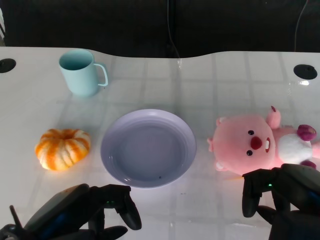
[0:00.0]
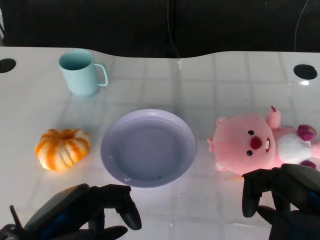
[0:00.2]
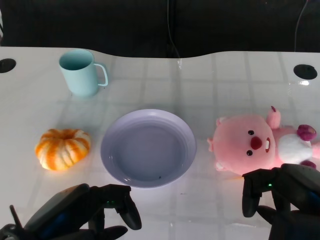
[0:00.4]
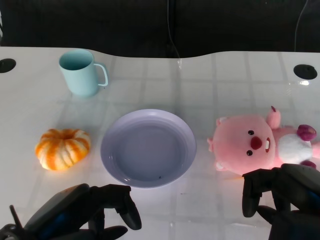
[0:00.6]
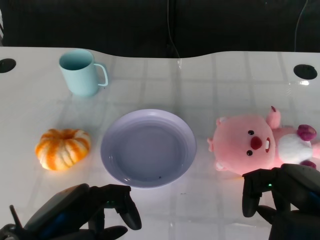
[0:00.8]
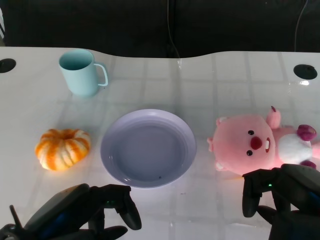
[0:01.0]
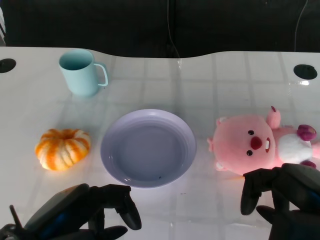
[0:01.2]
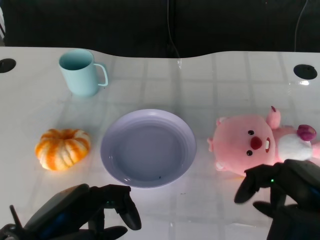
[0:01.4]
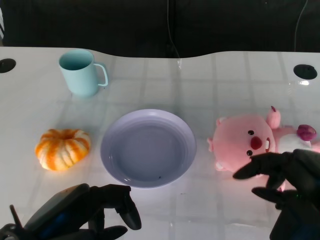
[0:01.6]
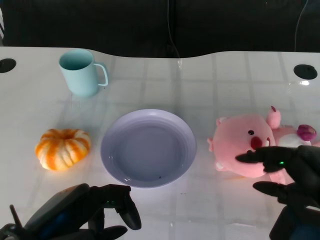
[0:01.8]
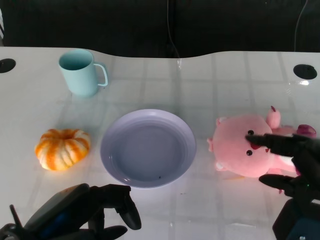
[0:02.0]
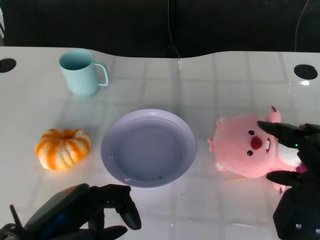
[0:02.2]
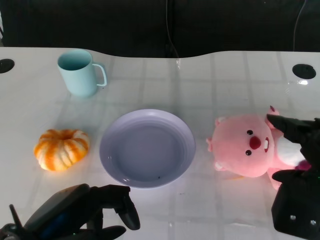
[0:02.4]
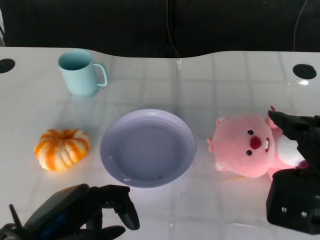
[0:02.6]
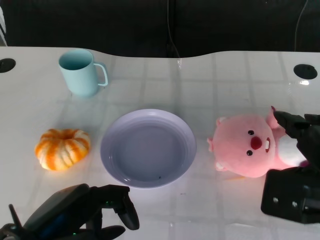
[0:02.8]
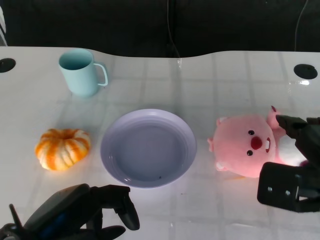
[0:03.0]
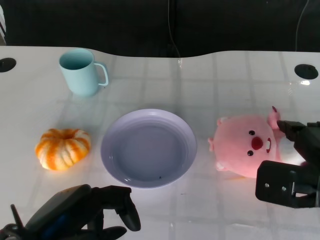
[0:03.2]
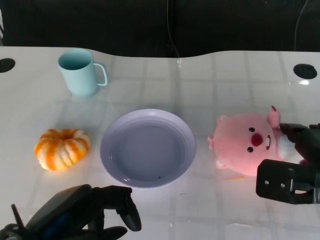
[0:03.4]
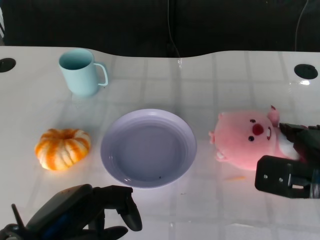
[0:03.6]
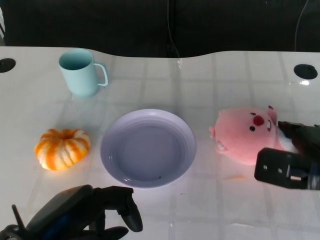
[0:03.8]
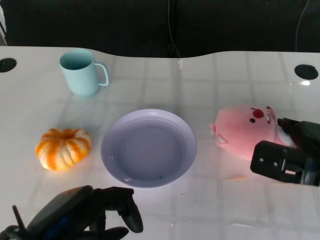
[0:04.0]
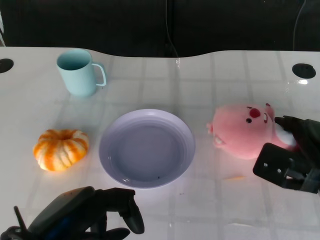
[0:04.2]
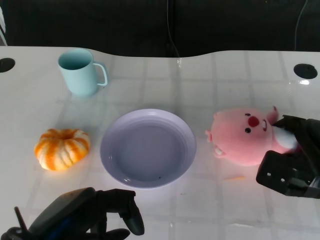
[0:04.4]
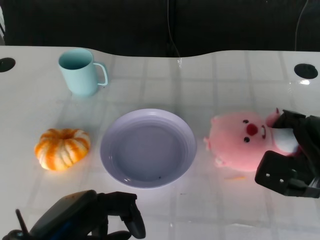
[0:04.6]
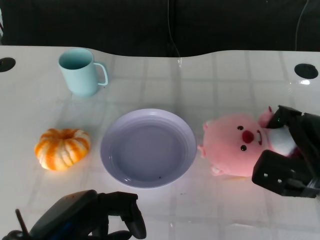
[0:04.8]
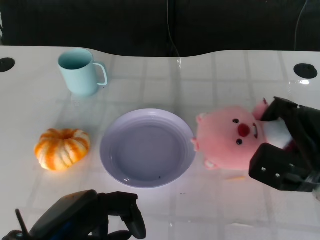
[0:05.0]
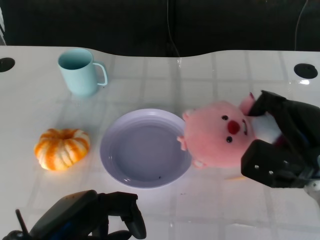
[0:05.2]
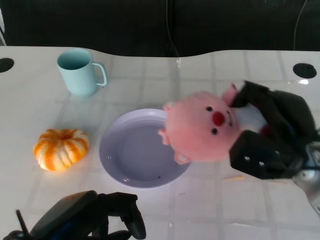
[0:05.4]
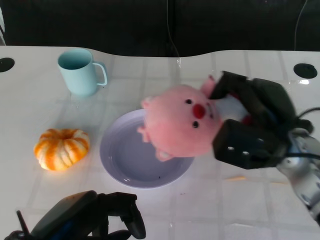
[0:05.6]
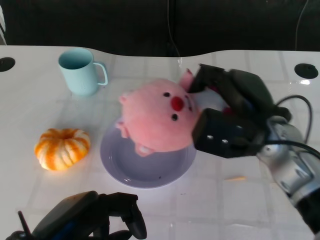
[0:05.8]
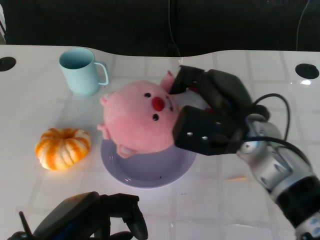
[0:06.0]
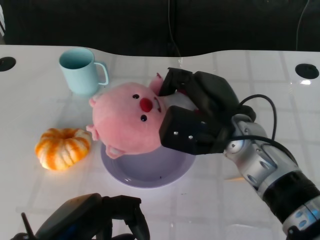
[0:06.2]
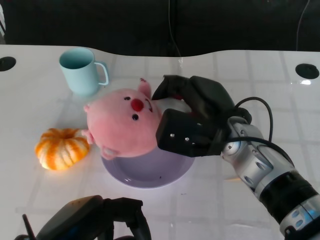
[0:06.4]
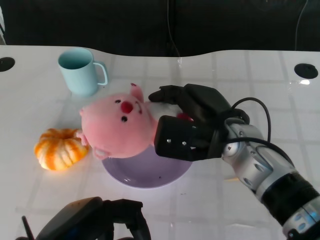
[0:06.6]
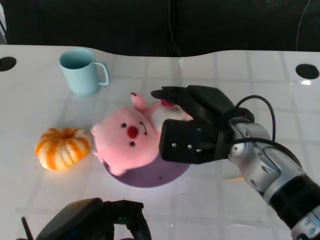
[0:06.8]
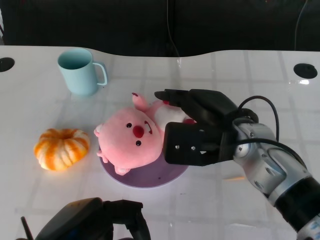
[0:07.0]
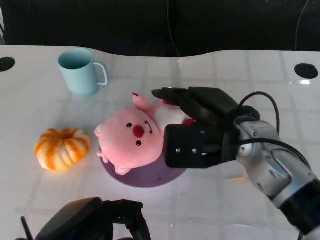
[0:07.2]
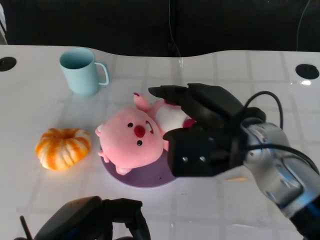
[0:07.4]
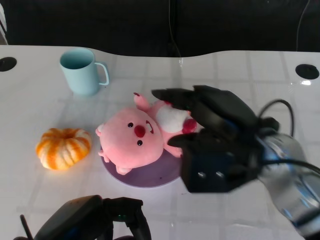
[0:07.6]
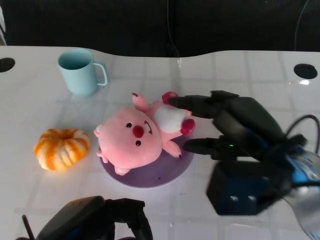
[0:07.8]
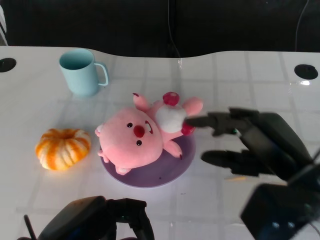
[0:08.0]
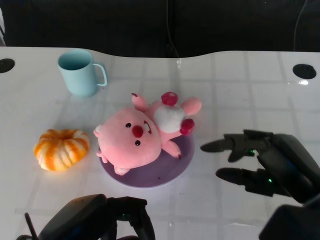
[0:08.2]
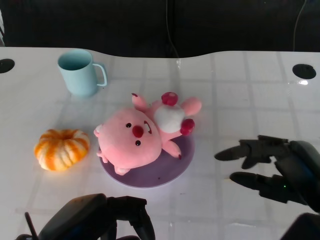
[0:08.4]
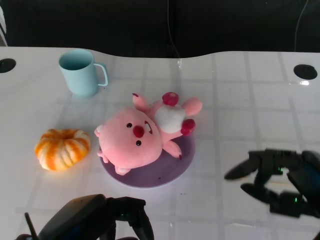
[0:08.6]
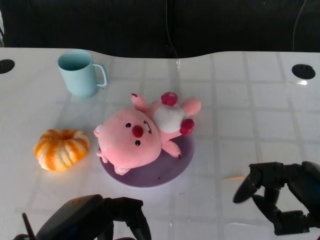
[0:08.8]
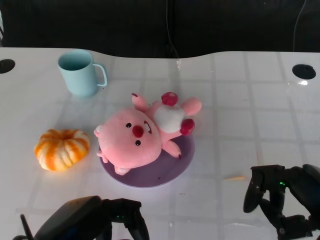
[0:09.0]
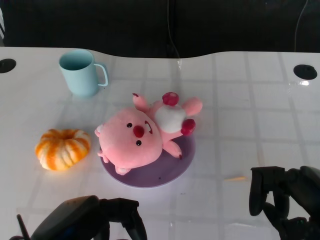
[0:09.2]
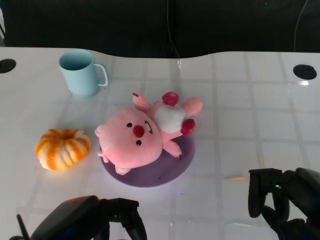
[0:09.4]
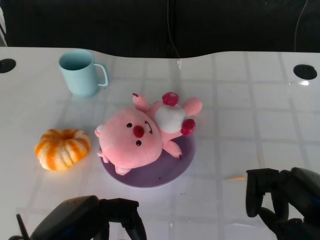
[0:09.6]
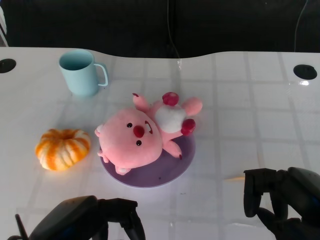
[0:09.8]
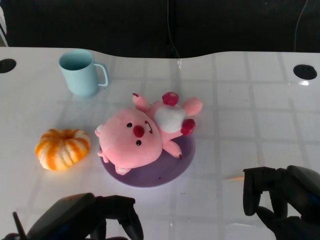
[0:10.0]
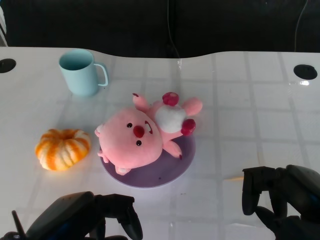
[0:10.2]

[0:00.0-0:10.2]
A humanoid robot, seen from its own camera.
Task of the whole recording: Pick up the doll on the other side of the plate and place it into the plate.
Step, 0:01.0 to 0:05.6: Grasp the pink doll with the right gripper.
Step, 0:05.8 to 0:07.8: Place the pink doll into the plate with the right gripper.
0:01.4 to 0:03.0: The right hand is displaced forward by some 5 cm.
0:03.0 to 0:04.4: The right hand travels downward by roughly 10 cm.
0:04.4 to 0:05.8: The right hand moves to the left and upward, some 15 cm.
0:07.2 to 0:08.8: The right hand travels backward and to the right by some 20 cm.
0:08.8 to 0:10.2: The hands make only small movements.

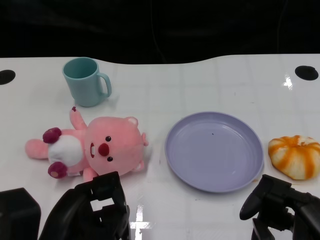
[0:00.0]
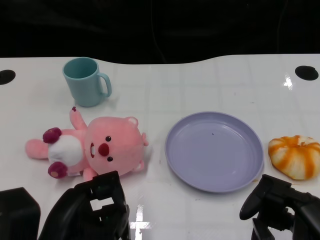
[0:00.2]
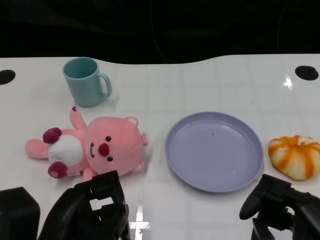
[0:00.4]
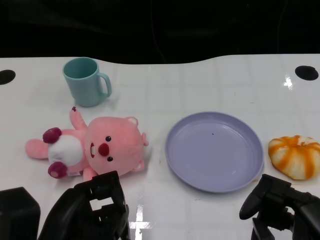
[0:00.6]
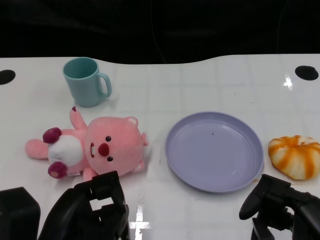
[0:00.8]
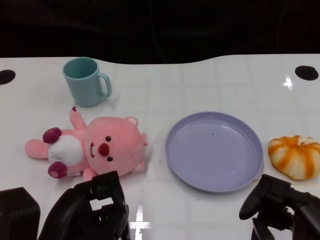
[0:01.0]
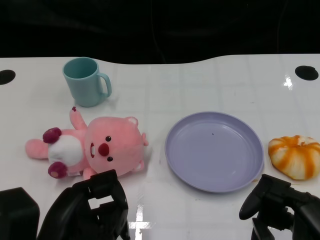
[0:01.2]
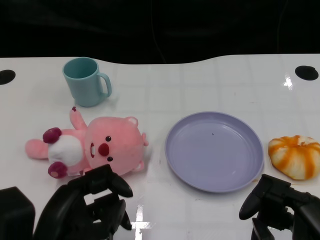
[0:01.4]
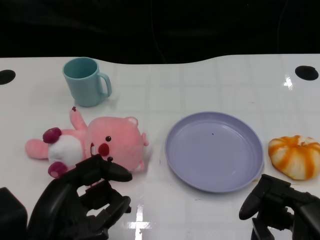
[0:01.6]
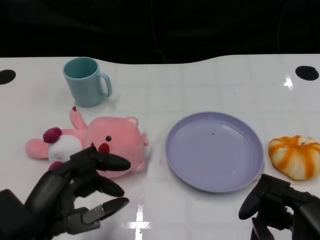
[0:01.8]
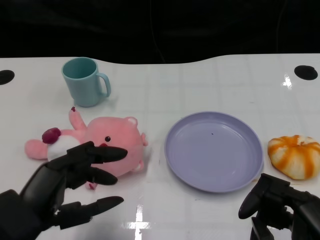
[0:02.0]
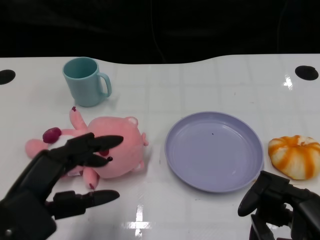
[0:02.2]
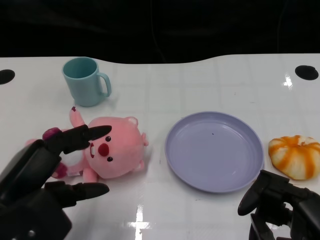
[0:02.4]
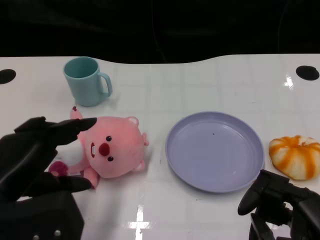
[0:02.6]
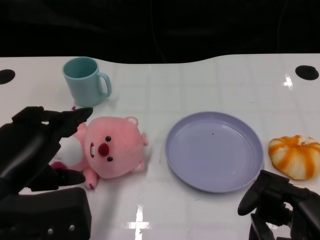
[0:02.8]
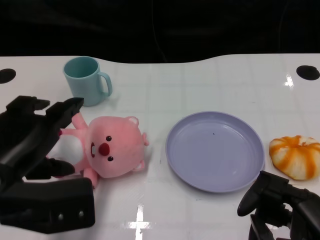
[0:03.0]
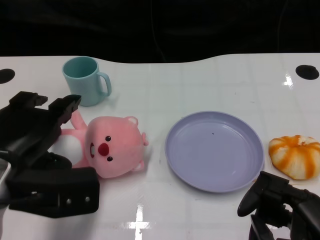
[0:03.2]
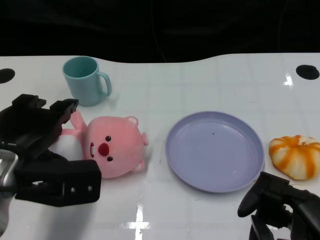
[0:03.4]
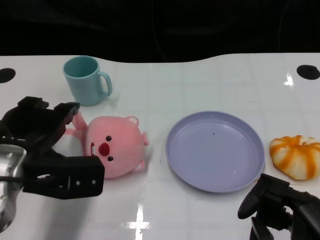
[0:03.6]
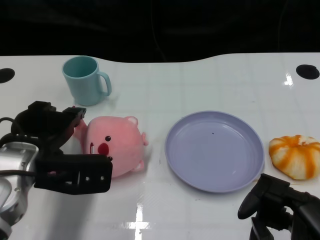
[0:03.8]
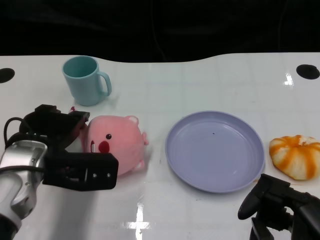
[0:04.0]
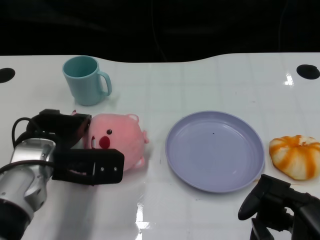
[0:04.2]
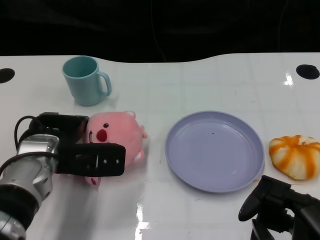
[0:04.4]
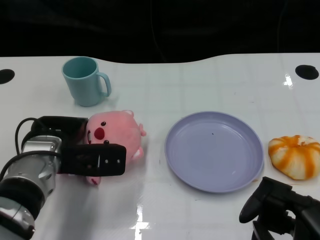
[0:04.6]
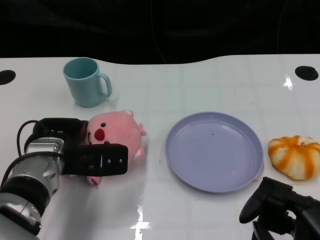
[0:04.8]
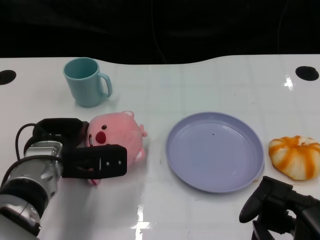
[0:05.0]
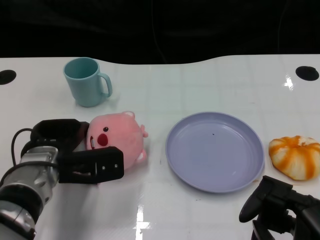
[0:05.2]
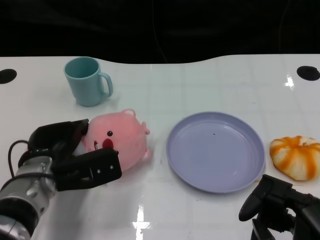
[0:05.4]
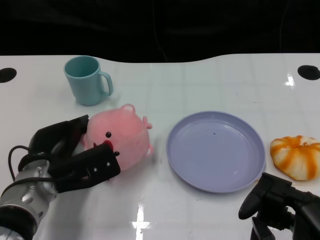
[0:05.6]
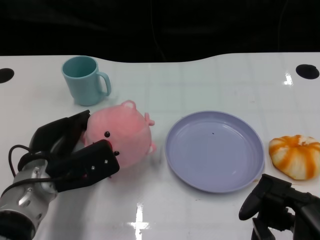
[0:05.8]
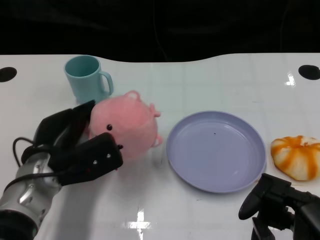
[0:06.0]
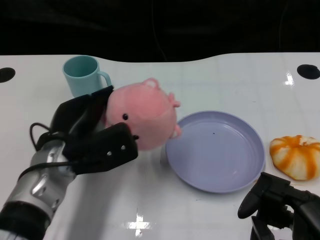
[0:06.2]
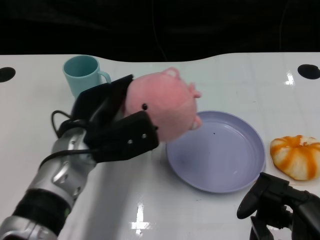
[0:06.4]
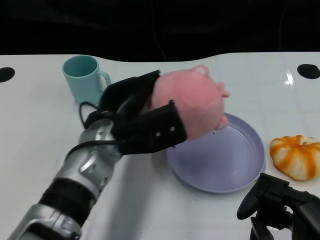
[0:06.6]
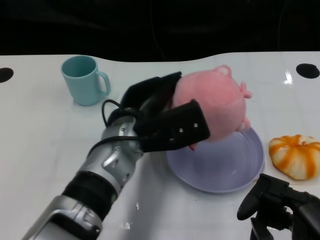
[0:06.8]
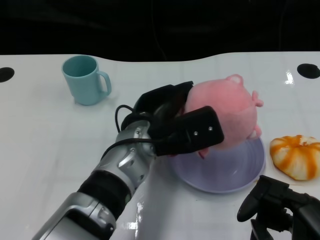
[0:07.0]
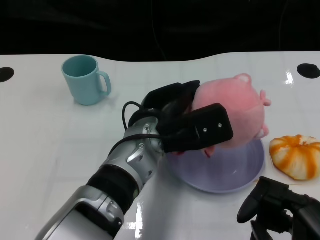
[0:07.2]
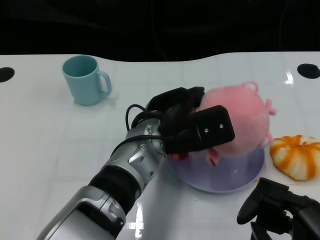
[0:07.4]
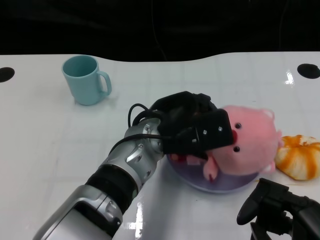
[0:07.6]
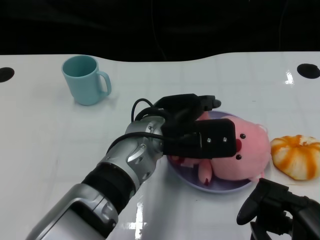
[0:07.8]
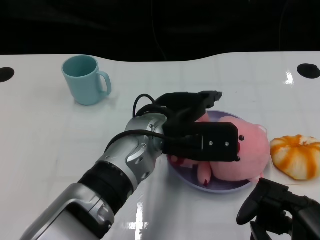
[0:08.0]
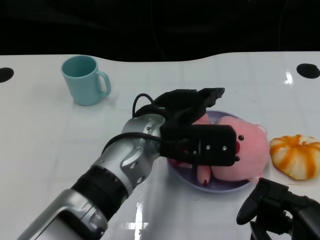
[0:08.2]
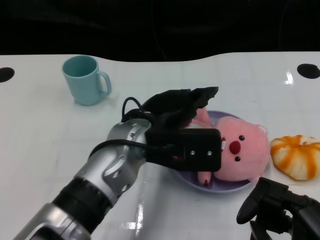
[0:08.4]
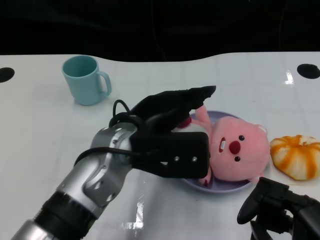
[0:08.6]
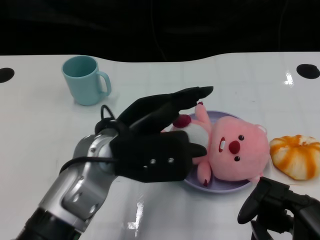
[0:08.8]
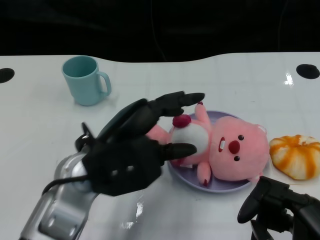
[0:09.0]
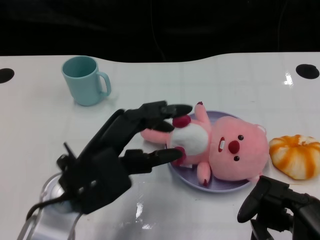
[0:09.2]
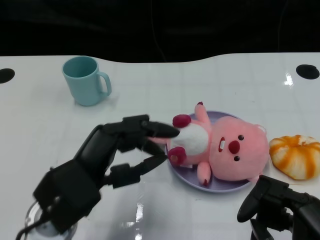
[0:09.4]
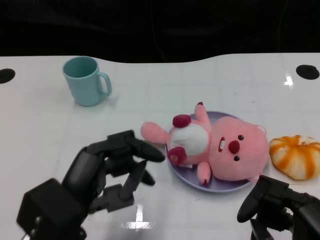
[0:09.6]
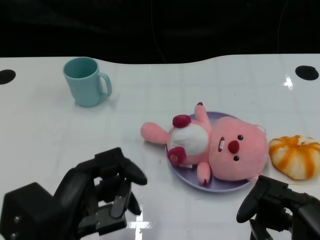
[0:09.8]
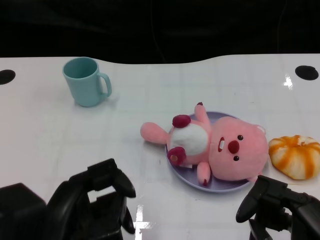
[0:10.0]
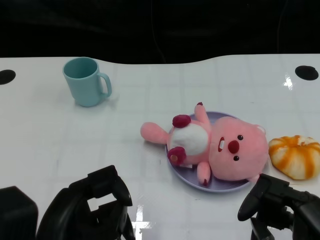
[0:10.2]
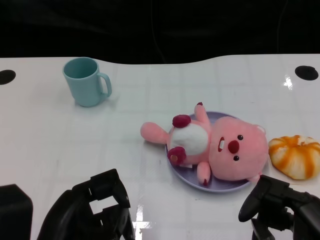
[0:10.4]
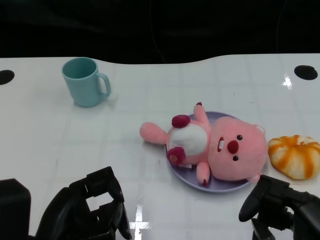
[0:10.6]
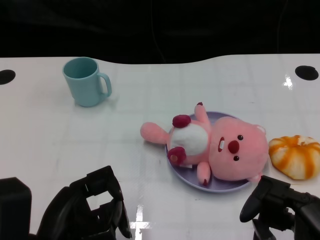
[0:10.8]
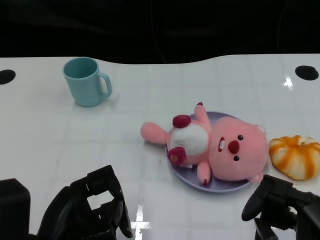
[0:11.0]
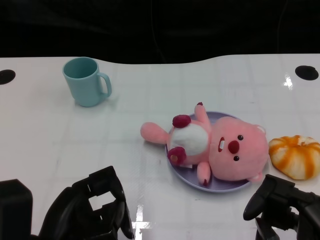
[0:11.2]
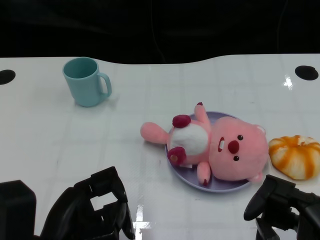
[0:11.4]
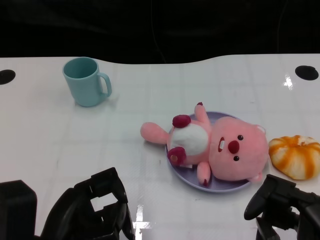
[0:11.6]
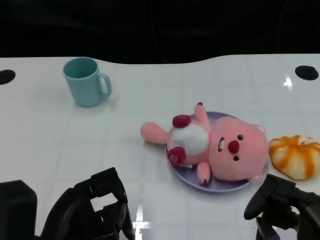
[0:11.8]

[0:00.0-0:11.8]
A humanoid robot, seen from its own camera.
Task of the whole recording: Pick up the doll on one side of the plate and place it into the plate.
Step, 0:01.2 to 0:05.8: Grasp the pink doll with the left gripper.
Step, 0:06.2 to 0:08.0: Place the pink doll into the plate with the left gripper.
0:01.4 to 0:03.0: The left hand goes approximately 10 cm upward and forward.
0:03.0 to 0:04.4: The left hand travels forward and downward by some 15 cm.
0:06.0 to 0:07.4: The left hand is displaced to the right by about 15 cm.
0:07.4 to 0:08.8: The left hand heads to the left, covering some 5 cm.
0:08.8 to 0:10.4: The left hand shifts about 15 cm backward and to the left.
0:10.4 to 0:11.8: There are only small adjustments of the hands.
